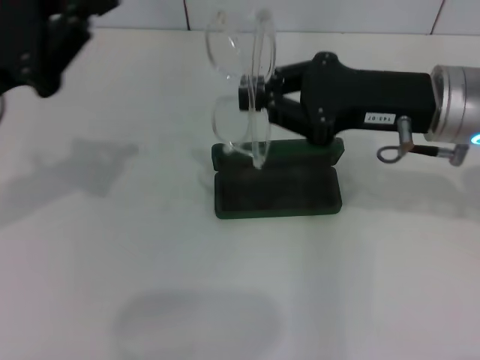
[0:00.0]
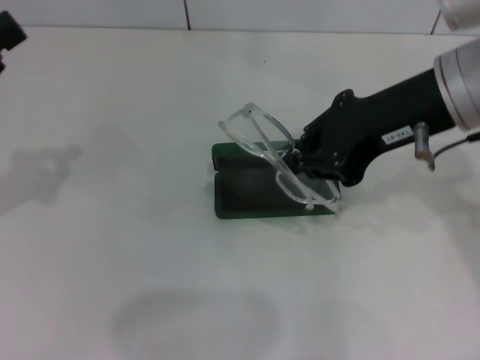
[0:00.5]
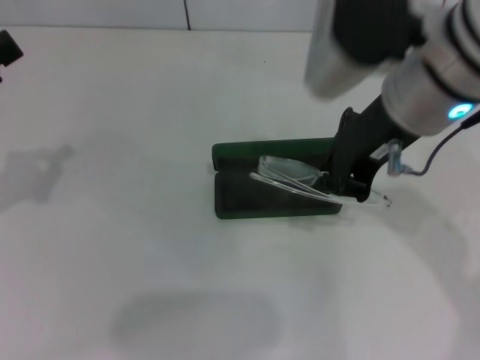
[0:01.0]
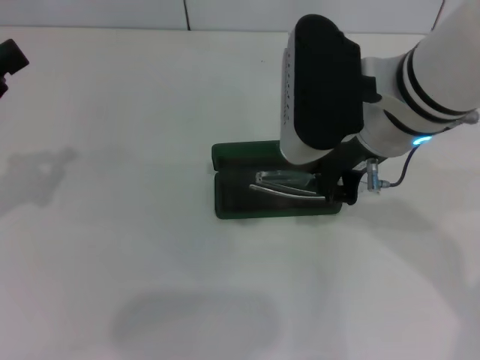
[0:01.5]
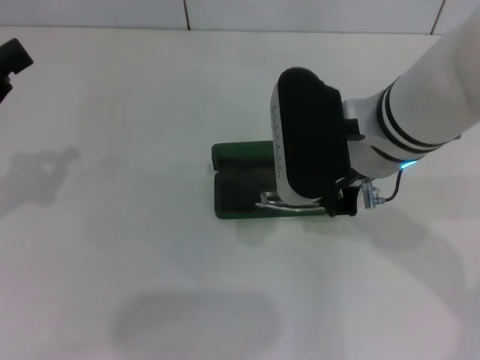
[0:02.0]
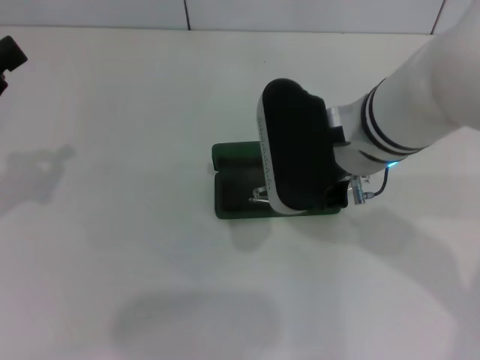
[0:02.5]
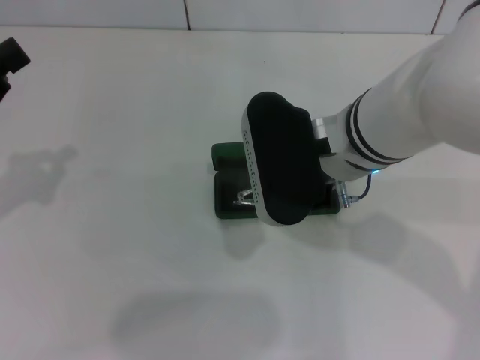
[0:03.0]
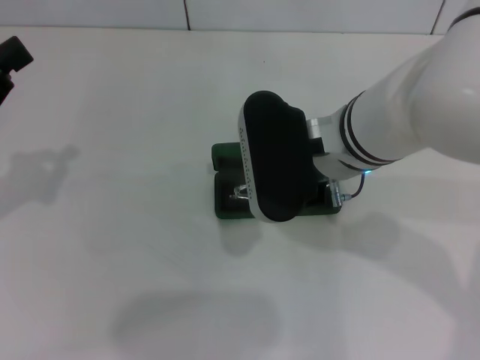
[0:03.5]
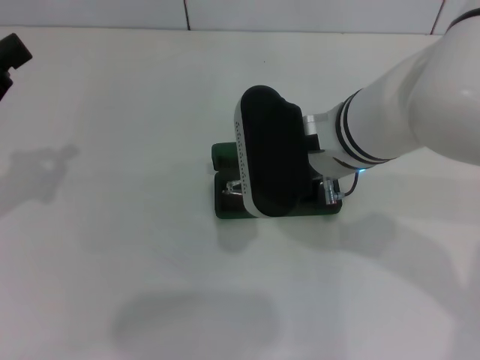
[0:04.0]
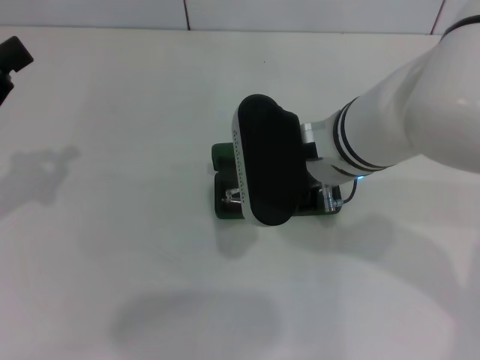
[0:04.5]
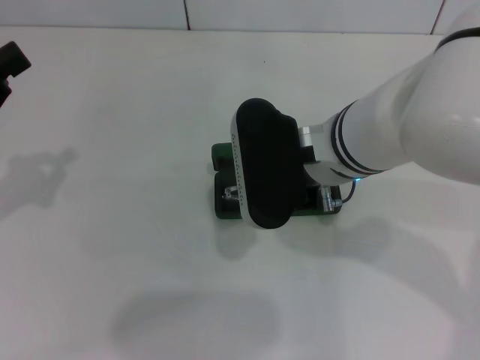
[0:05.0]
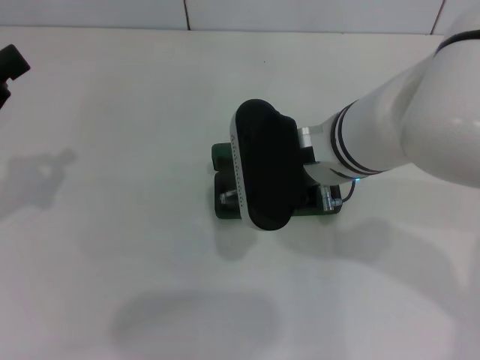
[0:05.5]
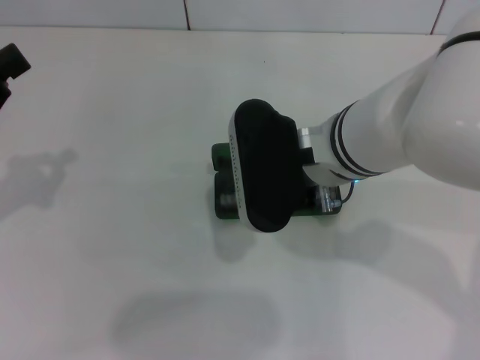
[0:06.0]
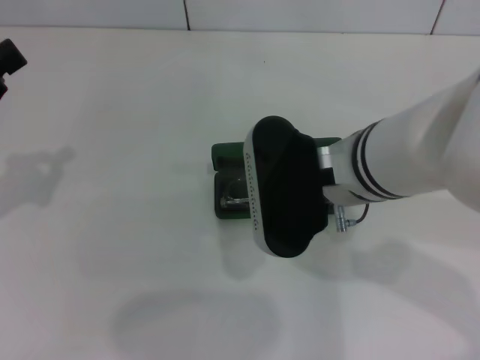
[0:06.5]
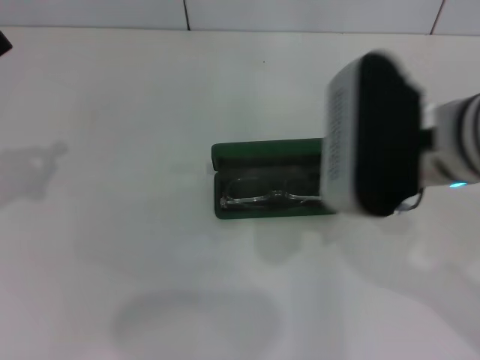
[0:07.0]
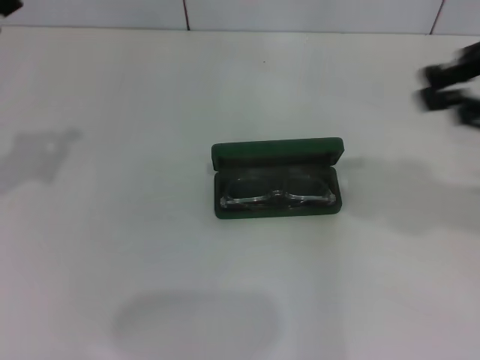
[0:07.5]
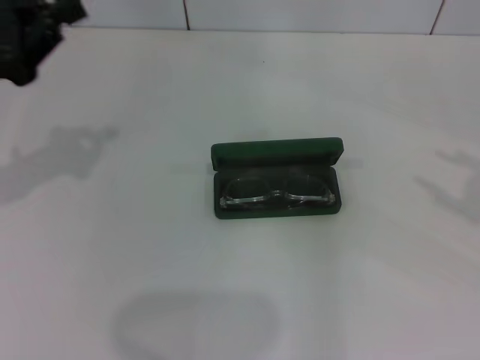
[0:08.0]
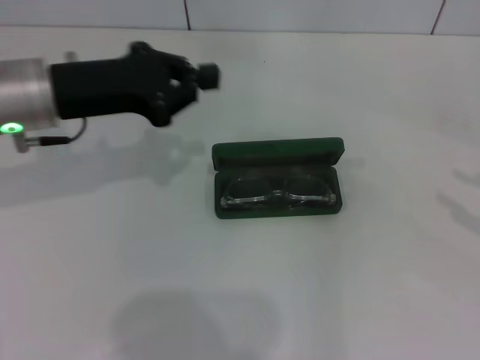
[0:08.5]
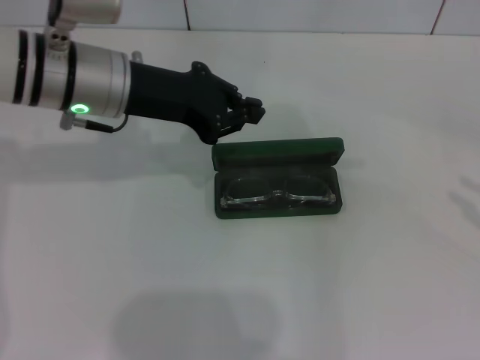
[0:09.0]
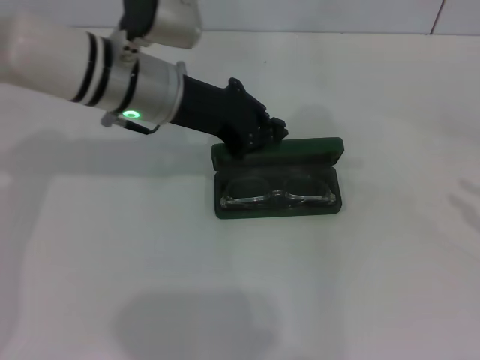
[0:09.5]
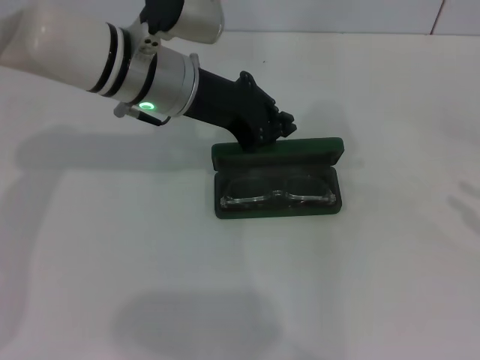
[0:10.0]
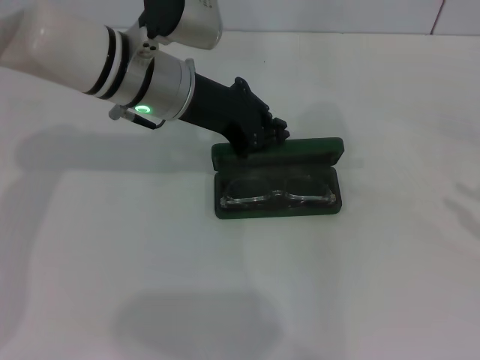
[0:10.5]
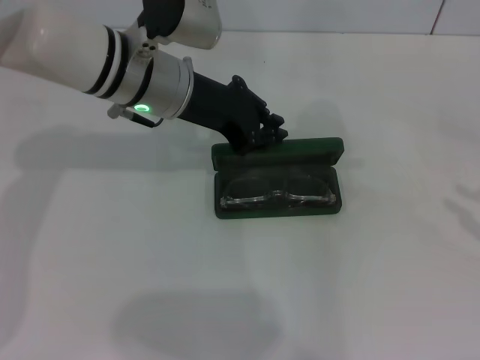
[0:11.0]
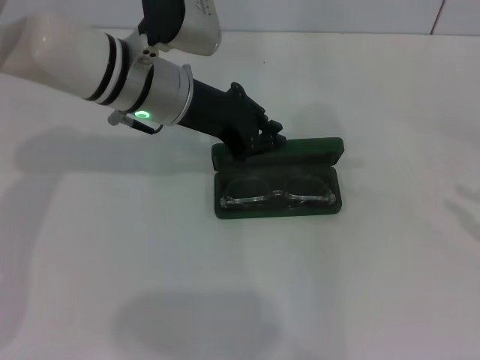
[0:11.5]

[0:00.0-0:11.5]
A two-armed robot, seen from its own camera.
Step, 0:00.0 to 0:06.5: Put the glasses into the case with your right hand.
0:00.0 to 0:02.0: The grippers both shift to the left by about 10 cm.
0:02.0 to 0:04.0: There are only small adjustments of the grippers.
0:04.0 to 0:06.0: Neither gripper changes place.
0:06.0 to 0:07.5: The right gripper shifts some 25 cm to the right and upward.
0:07.5 to 0:09.5: The right gripper travels to the right and downward by approximately 20 cm, and opens, then closes once more. The left gripper shifts about 25 cm to the right and forward.
0:09.5 to 0:11.5: The grippers move only a little.

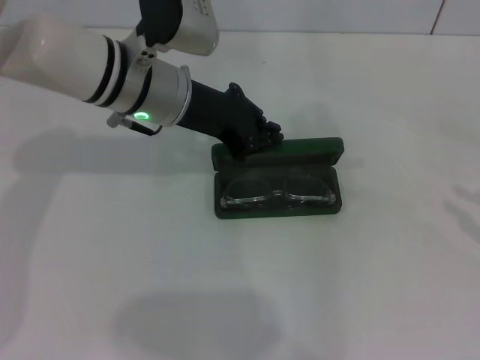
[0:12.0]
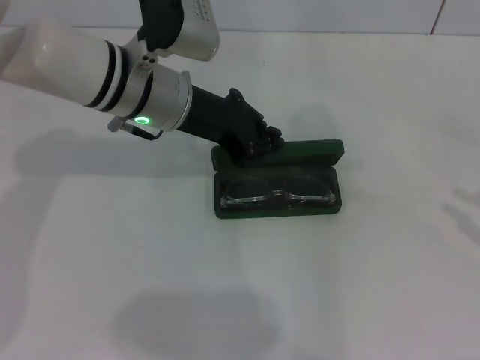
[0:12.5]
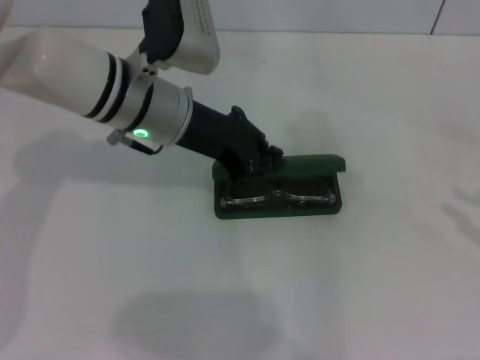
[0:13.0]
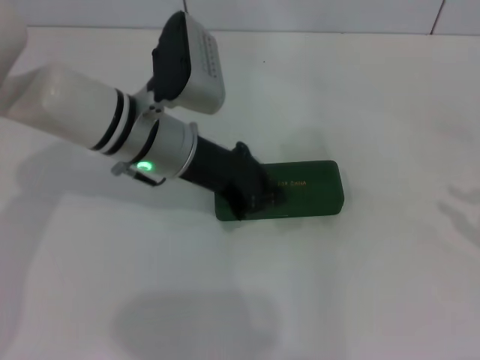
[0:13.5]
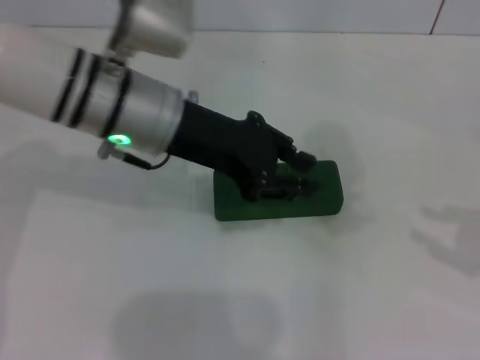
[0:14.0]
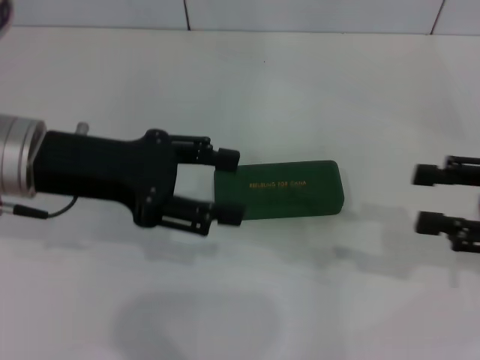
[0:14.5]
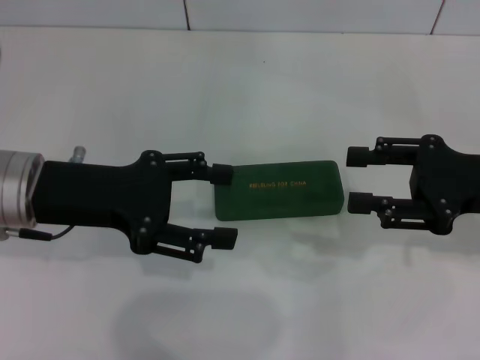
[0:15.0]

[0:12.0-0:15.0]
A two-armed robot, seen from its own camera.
0:12.0 to 0:13.5: The grippers make only small movements.
0:13.5 to 0:15.0: The right gripper goes approximately 15 cm to the left and forward, and opens its fingers; the left gripper shifts approximately 15 cm to the left and backward, and opens up.
